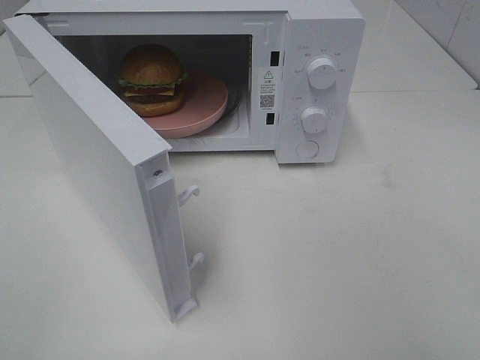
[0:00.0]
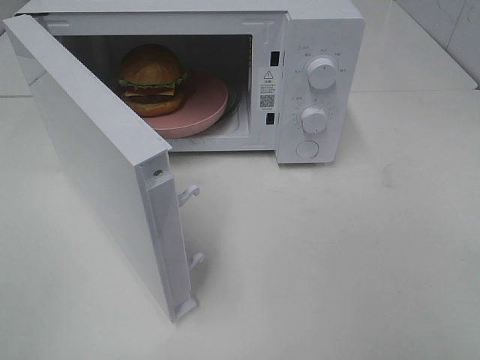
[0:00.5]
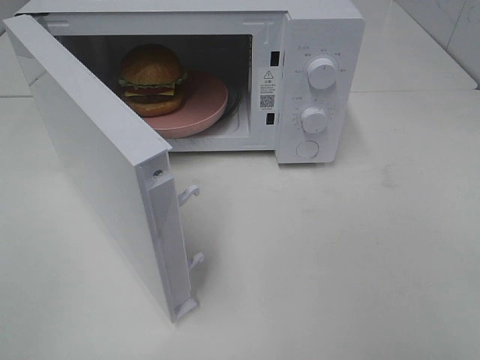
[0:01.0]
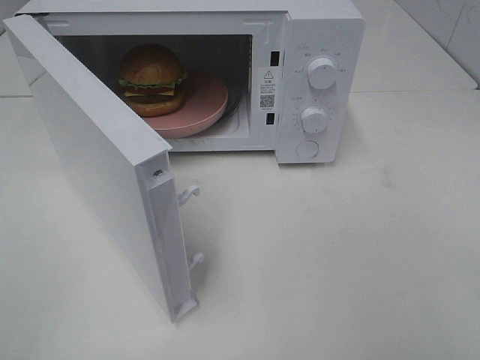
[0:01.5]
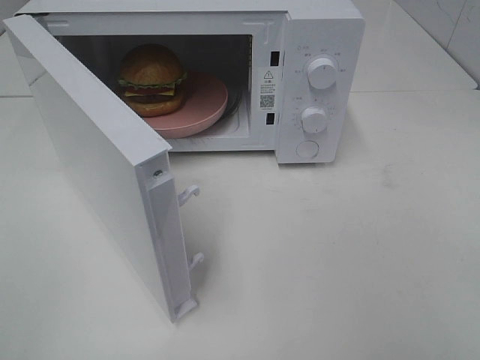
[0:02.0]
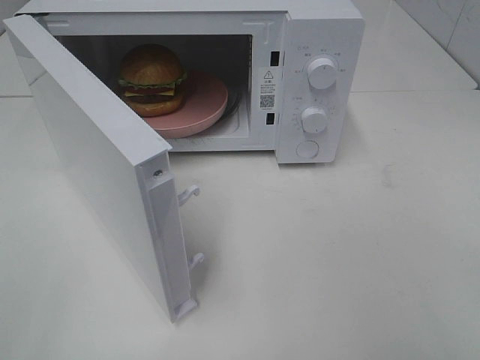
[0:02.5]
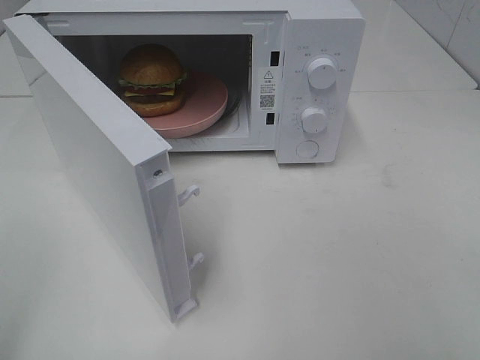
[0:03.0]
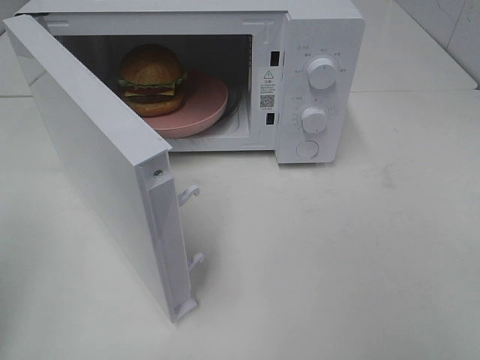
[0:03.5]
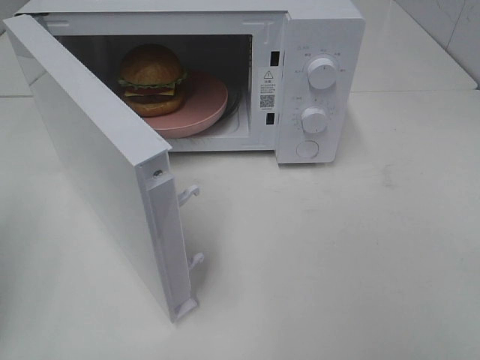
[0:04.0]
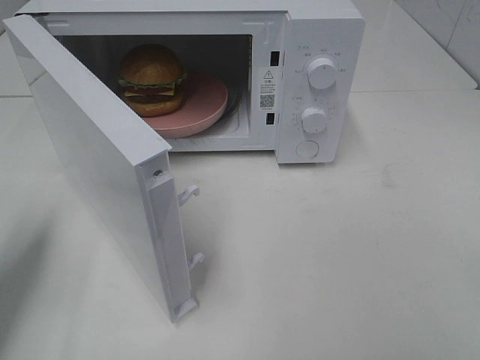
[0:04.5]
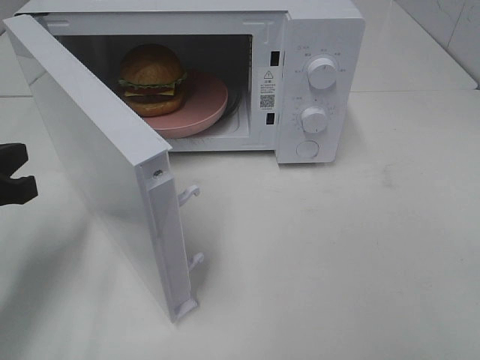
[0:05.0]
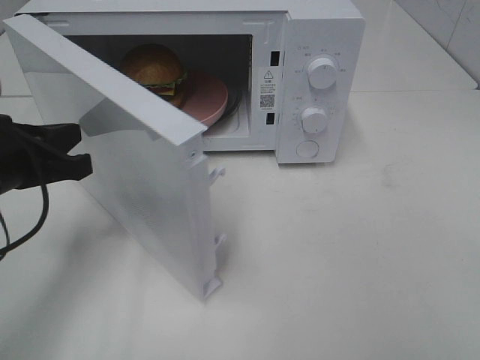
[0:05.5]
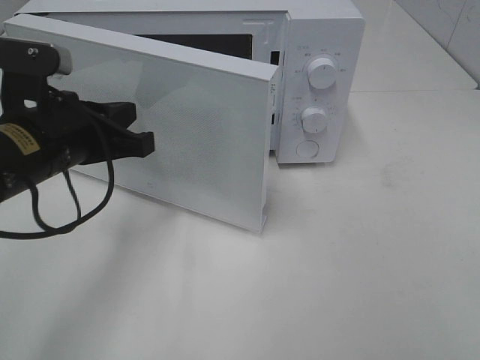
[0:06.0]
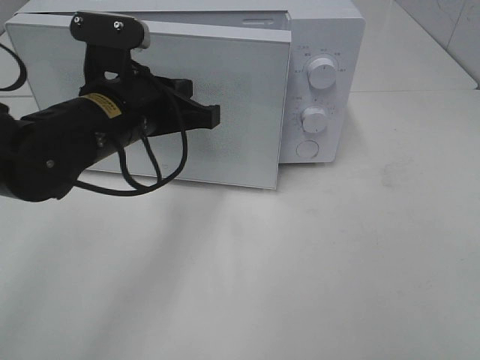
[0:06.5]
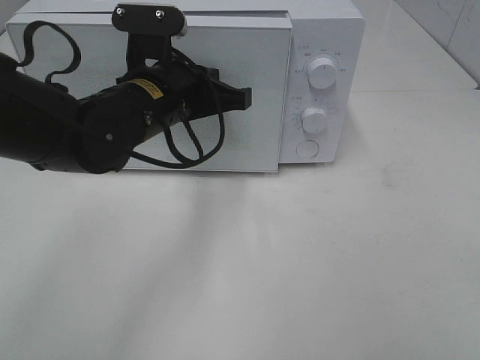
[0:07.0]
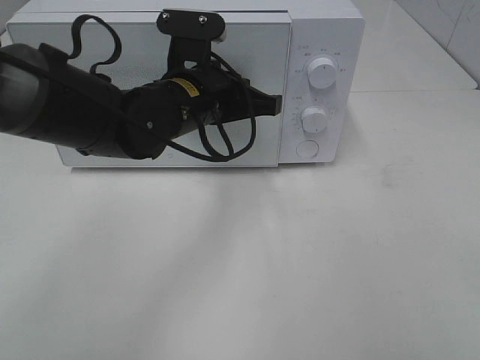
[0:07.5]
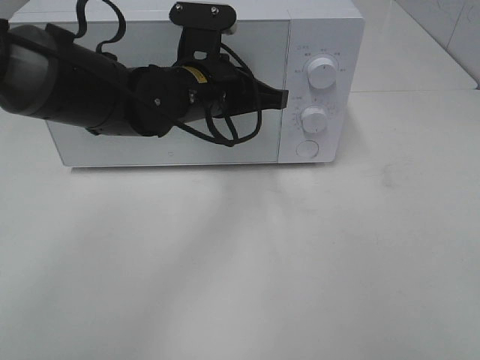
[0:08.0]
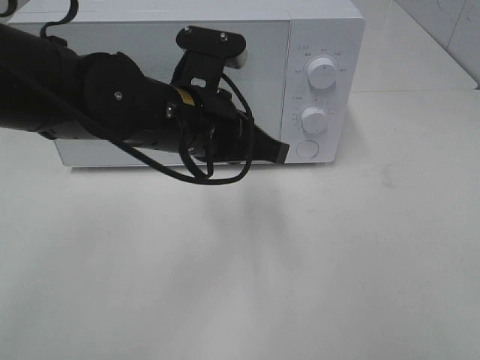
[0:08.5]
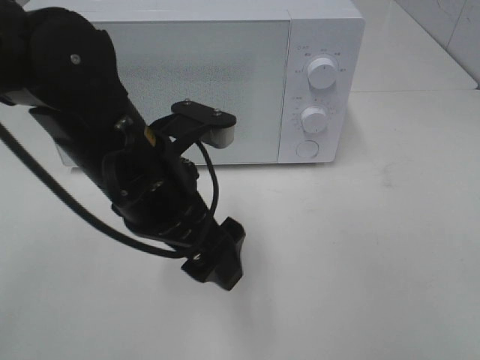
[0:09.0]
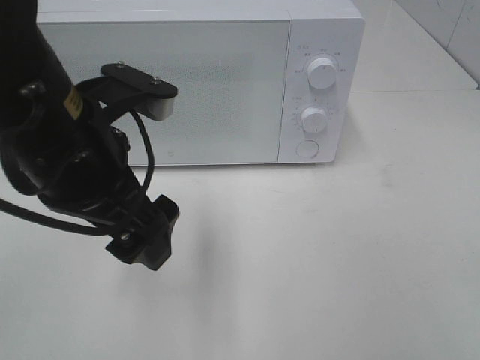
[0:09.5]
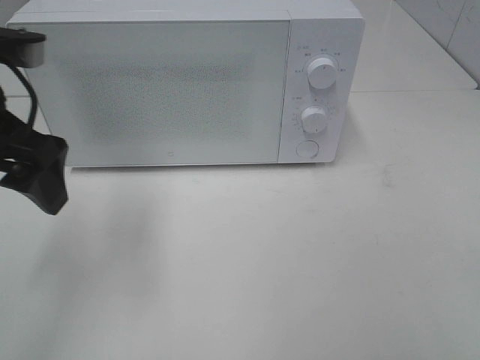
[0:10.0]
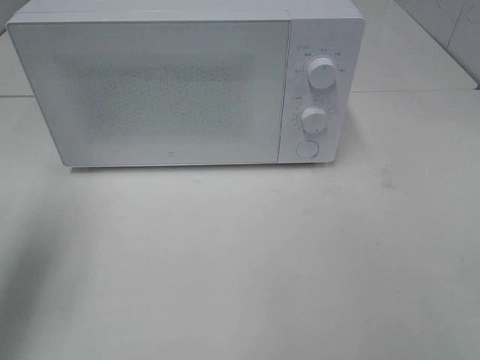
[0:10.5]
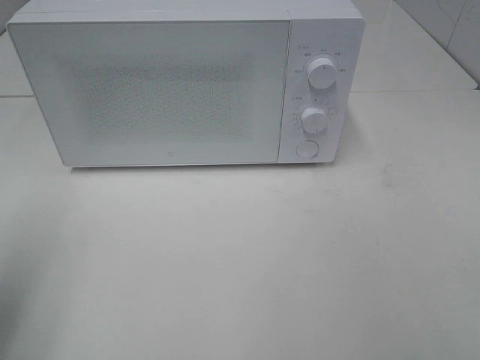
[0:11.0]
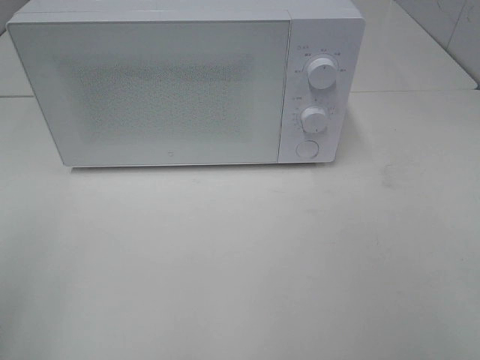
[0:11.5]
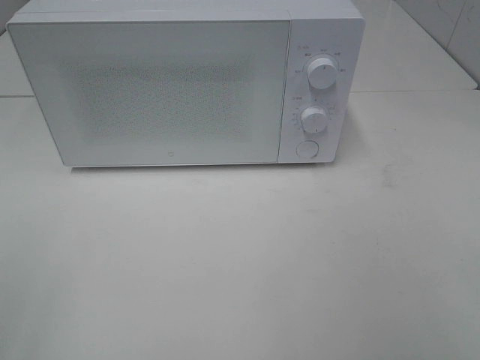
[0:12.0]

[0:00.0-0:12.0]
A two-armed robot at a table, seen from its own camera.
Task of the whole recording: Heat the burger.
Step, 0:00.0 to 0:08.0: Left hand: close the microwave door.
0:04.0 to 0:06.0: The left gripper shifts approximately 20 cm to the right and forward.
0:06.0 to 0:08.0: The left gripper travels to the right and forward by some 15 cm.
0:08.0 to 0:10.0: The left gripper travels to the left, backward and upward by roughly 20 cm, and opens.
0:10.0 to 0:12.0: The left gripper shifts some 25 cm backward and to the left.

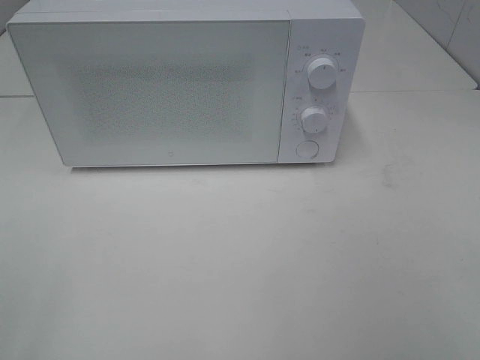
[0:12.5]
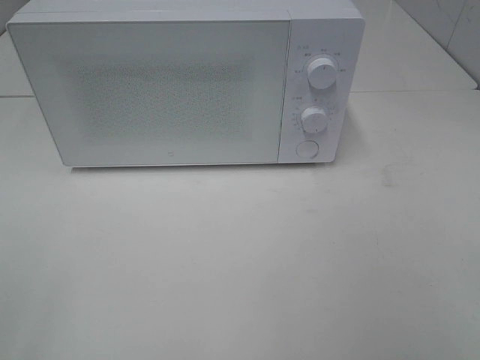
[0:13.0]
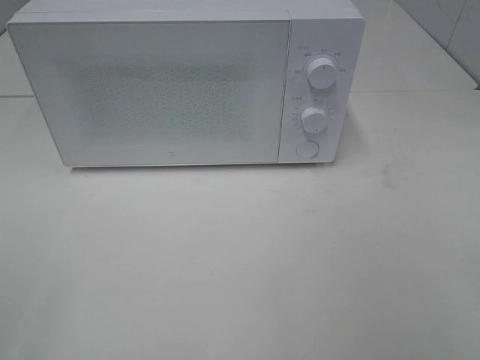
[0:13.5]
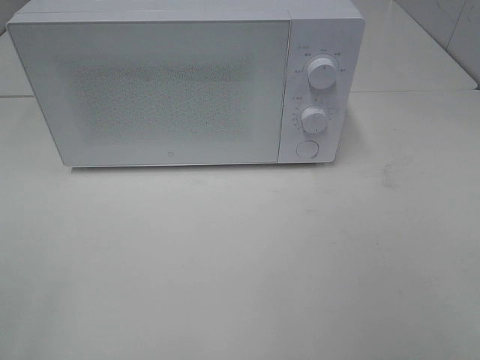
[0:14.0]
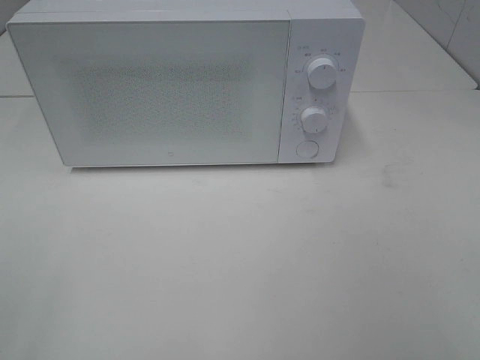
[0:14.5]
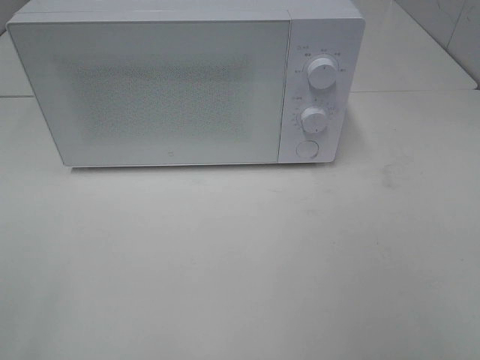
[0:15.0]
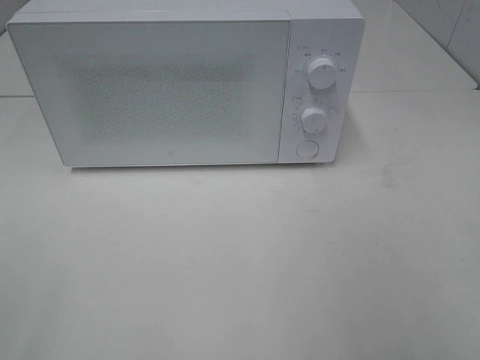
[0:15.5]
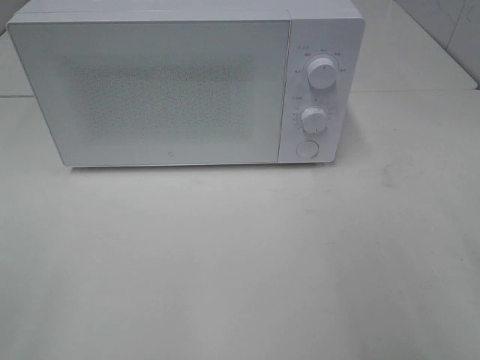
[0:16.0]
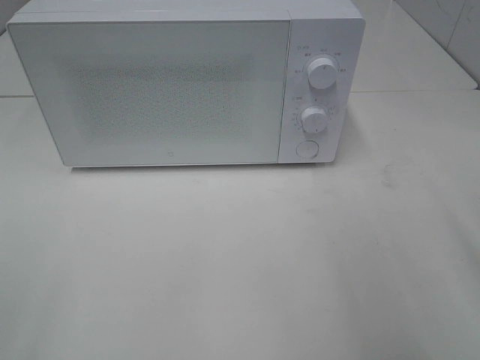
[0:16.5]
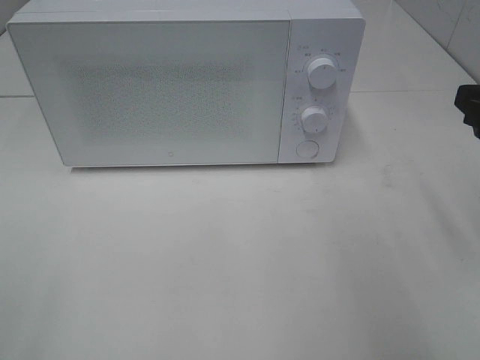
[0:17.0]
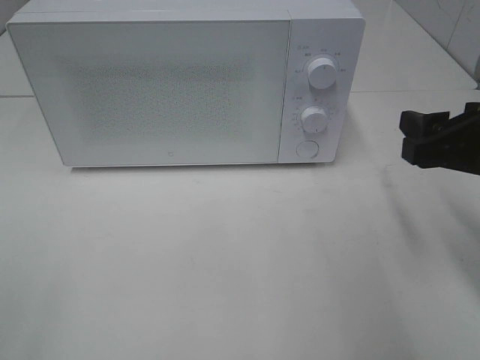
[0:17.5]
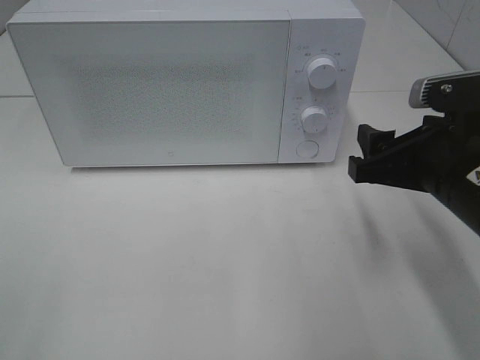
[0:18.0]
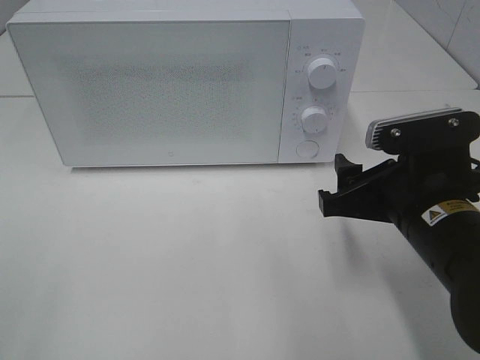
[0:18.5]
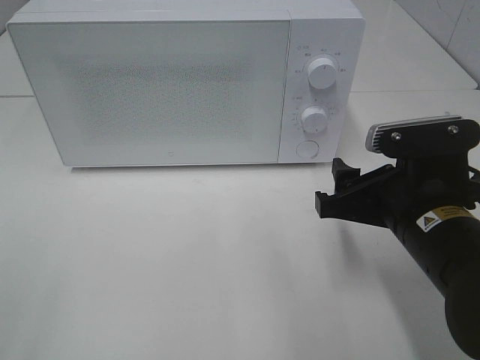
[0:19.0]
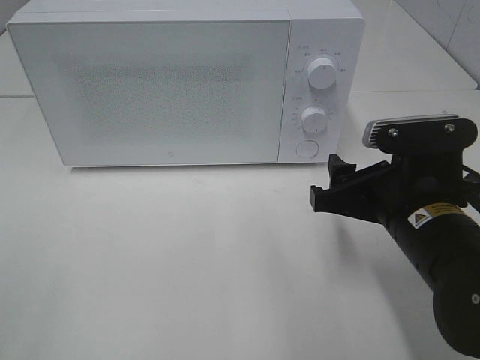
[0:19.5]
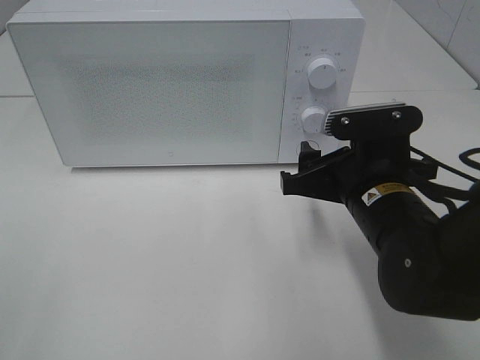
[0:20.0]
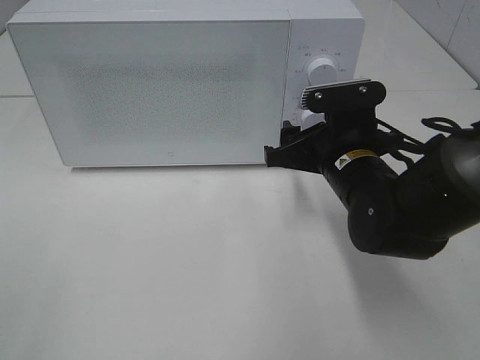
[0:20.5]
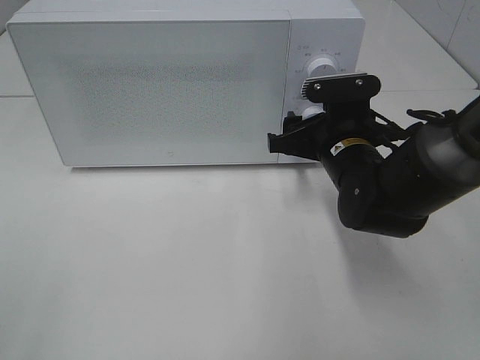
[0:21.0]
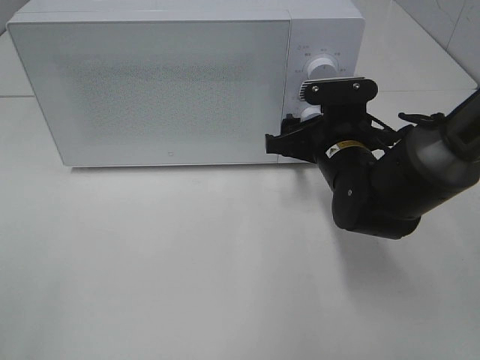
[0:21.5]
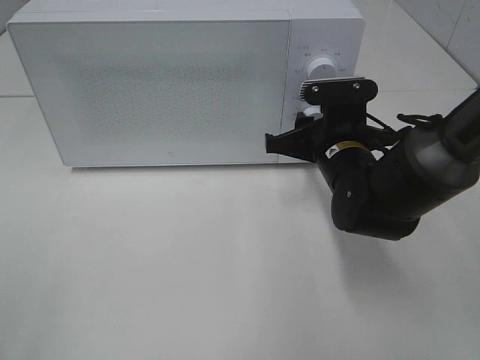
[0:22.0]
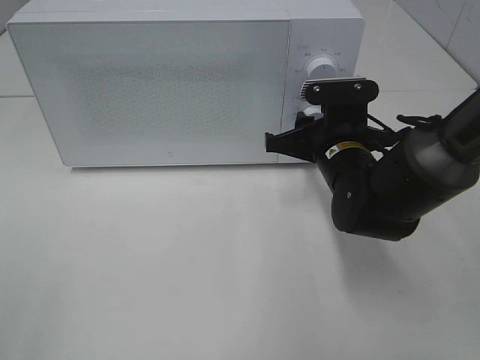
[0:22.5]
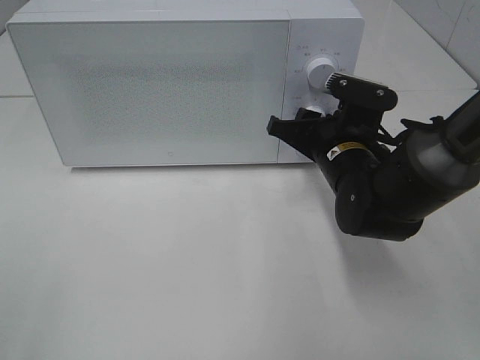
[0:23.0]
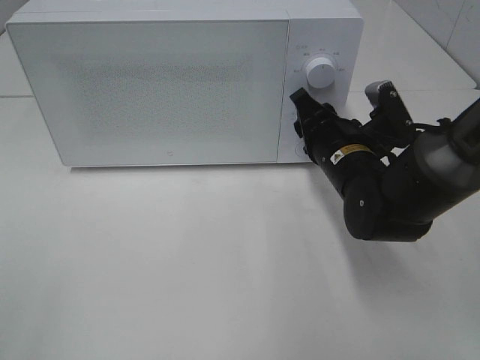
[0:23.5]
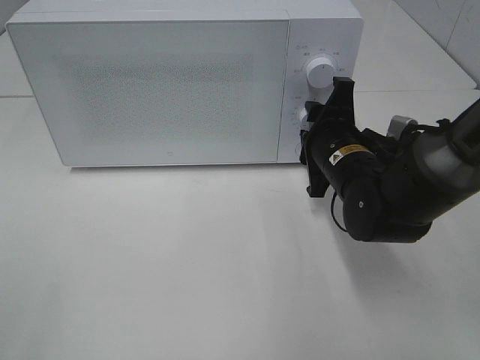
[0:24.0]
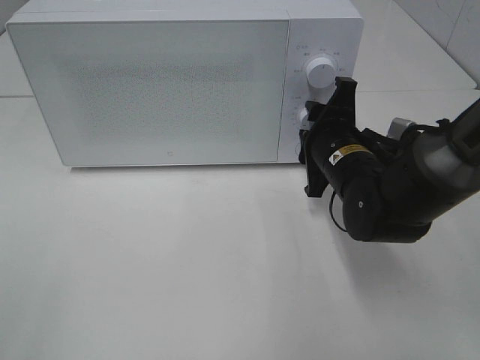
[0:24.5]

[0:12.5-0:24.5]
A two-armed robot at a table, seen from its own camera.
Task of the whole recording: Heat the burger.
0:12.5 to 0:14.5: The two grippers keep their place.
0:16.5 to 0:18.5: The right gripper is displaced downward and to the left by approximately 15 cm.
0:18.5 to 0:20.5: The right gripper heads forward, covering roughly 10 cm.
0:20.5 to 0:22.5: The right gripper closes up.

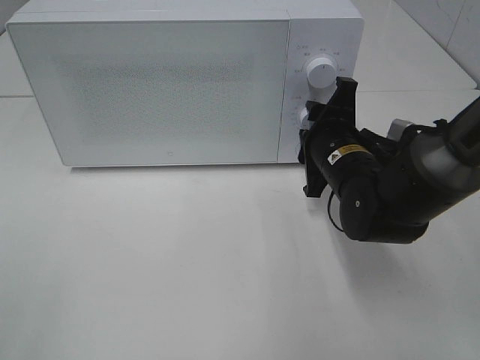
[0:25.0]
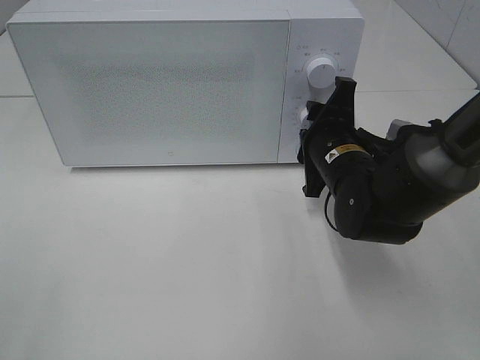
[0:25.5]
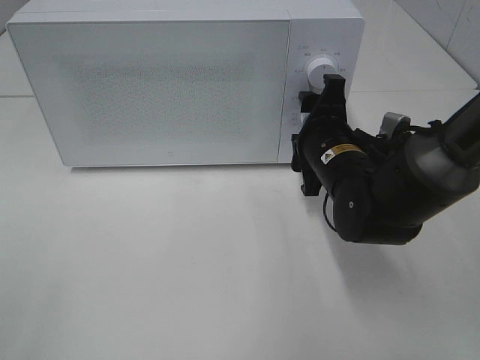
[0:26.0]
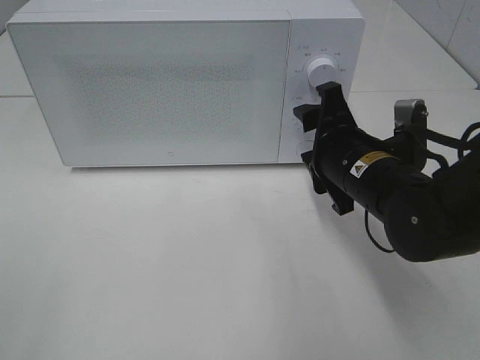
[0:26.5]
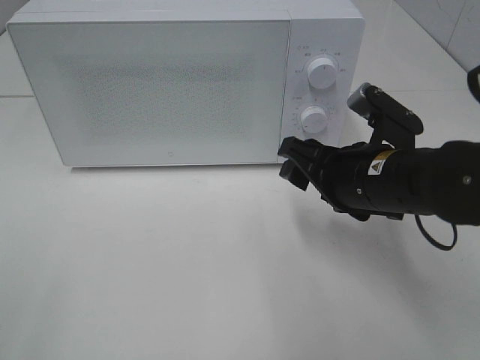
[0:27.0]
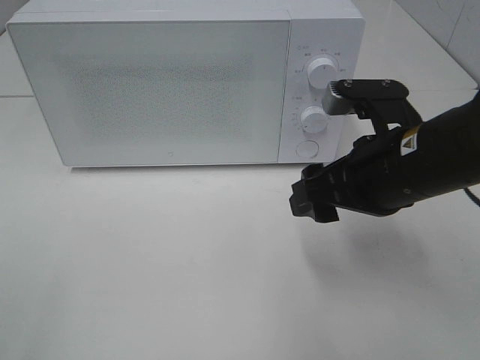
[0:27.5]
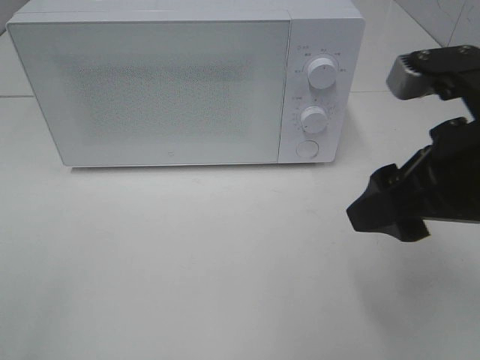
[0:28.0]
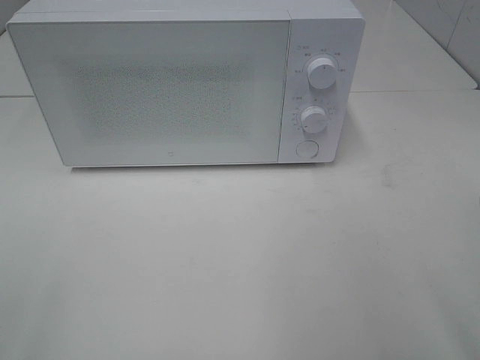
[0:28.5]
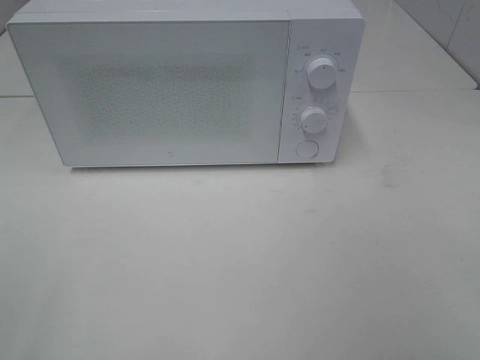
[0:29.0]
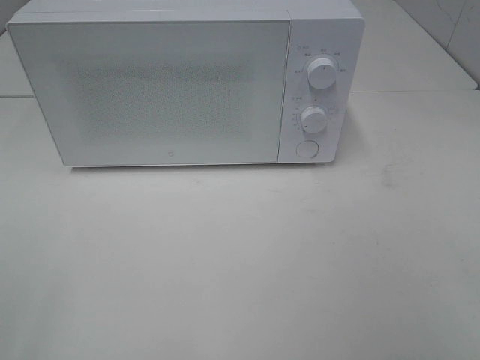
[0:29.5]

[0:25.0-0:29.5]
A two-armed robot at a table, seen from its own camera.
Task of the whole recording: Heat the burger.
0:25.0 to 0:27.0: The right gripper travels backward by roughly 5 cm.
0:27.0 to 0:29.5: The right gripper goes some 30 cm backward, to the right and upward.
